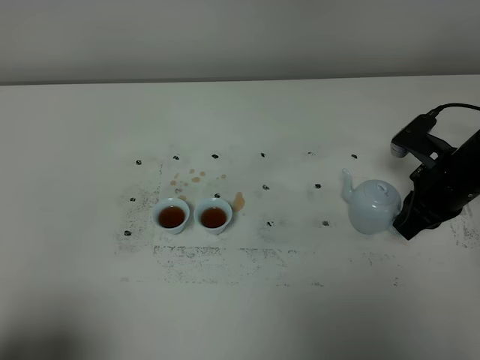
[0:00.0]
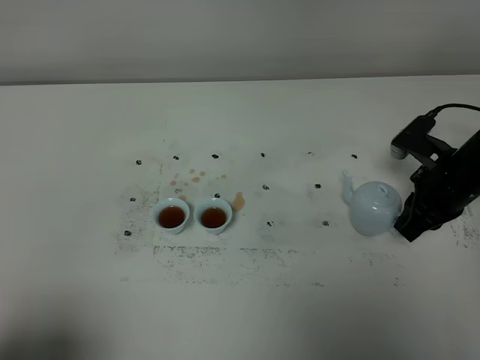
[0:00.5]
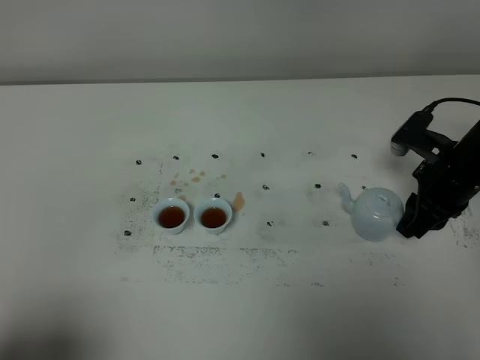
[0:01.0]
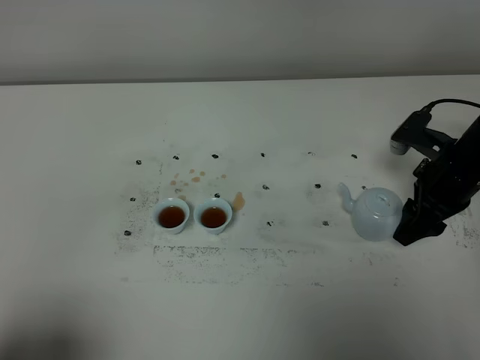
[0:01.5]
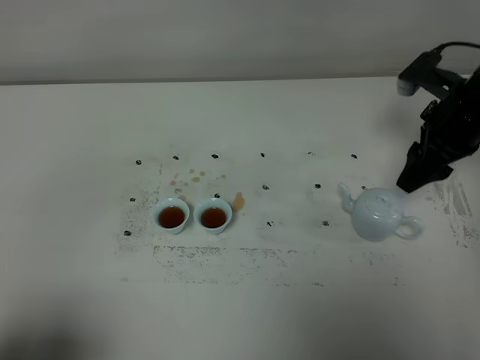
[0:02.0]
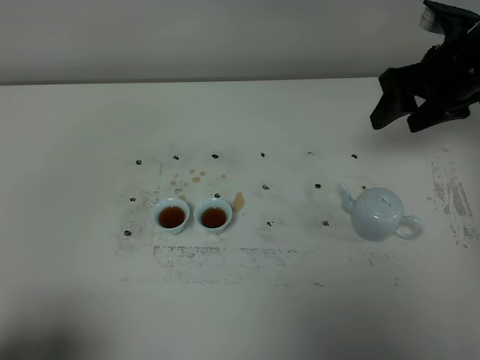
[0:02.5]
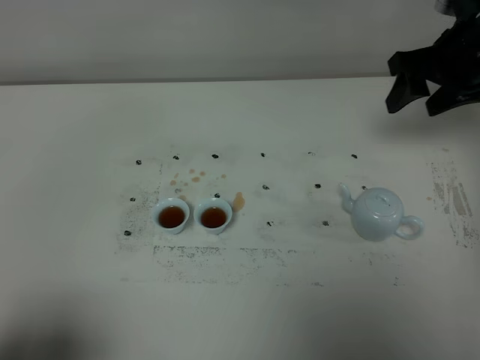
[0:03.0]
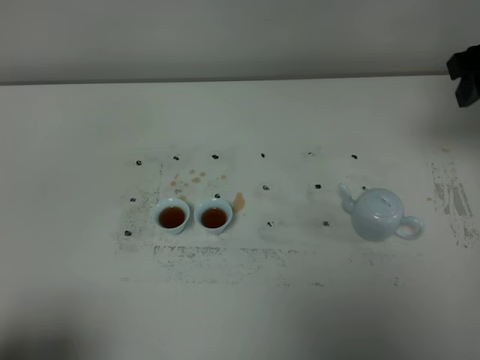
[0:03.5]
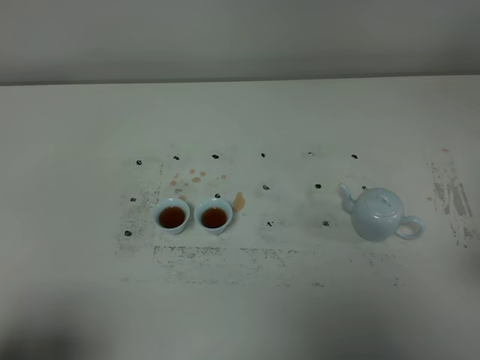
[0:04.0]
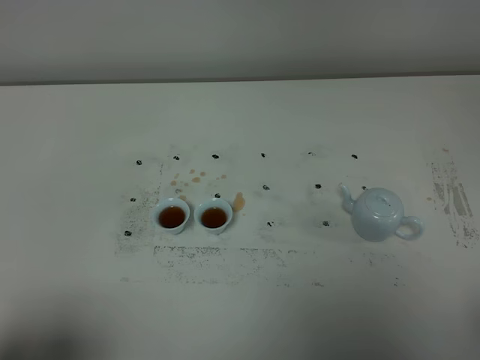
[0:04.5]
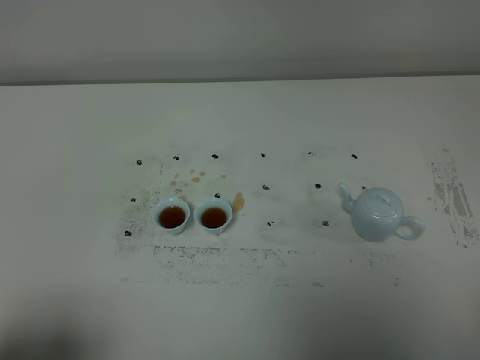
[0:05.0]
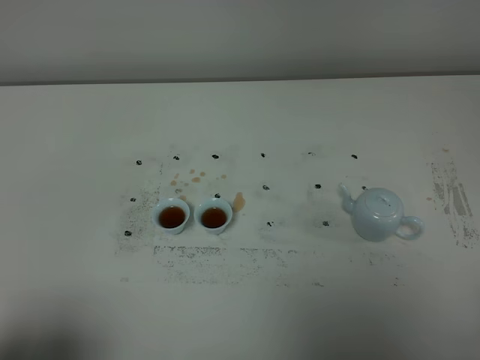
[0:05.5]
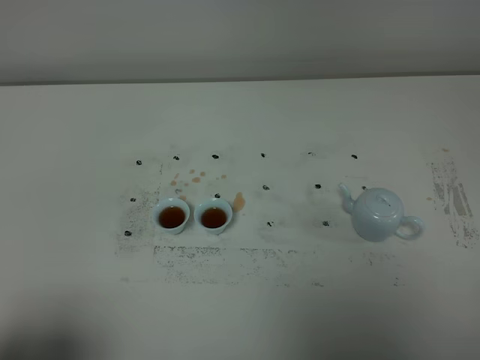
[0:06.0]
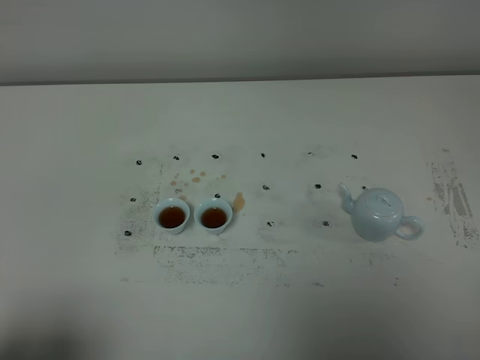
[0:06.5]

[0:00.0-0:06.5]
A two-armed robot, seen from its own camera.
Task of the whole recording: grasp the blue porcelain teapot and pour the tea into the two blue porcelain teacups one by one, put the blue porcelain teapot back in its original place.
0:00.0 to 0:02.0: The right gripper goes some 10 cm upward, and opens.
0:02.0 to 0:04.5: The right gripper is displaced backward by some 35 cm.
